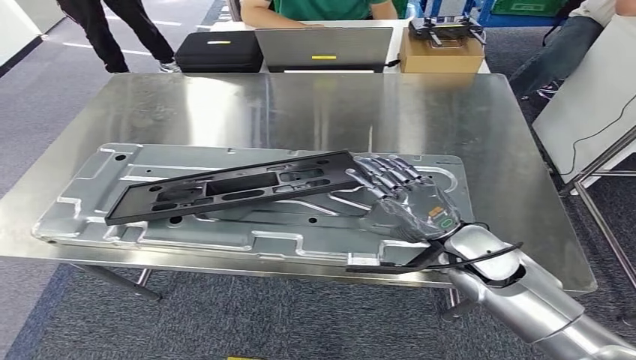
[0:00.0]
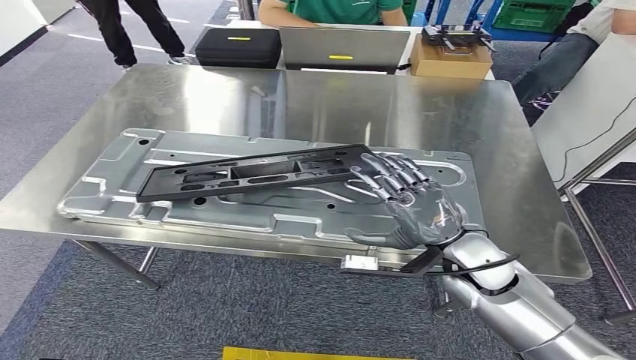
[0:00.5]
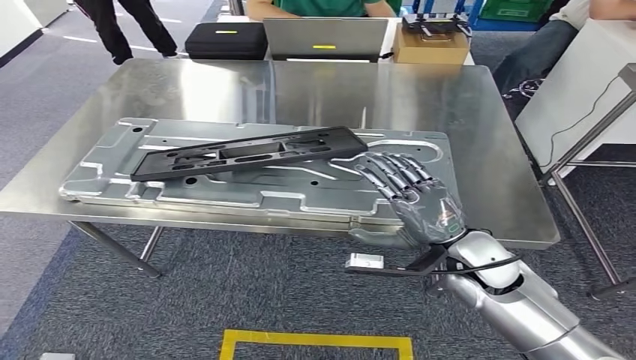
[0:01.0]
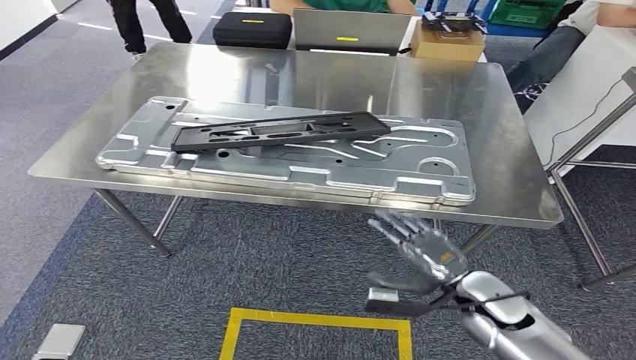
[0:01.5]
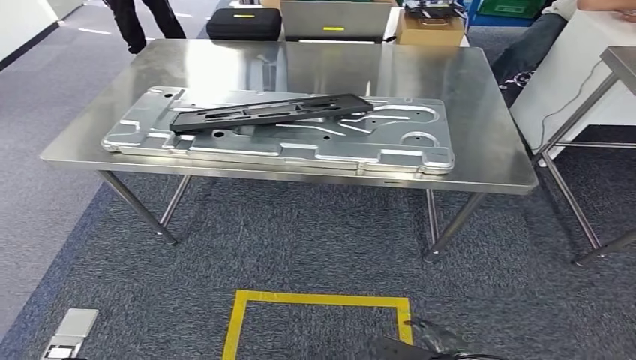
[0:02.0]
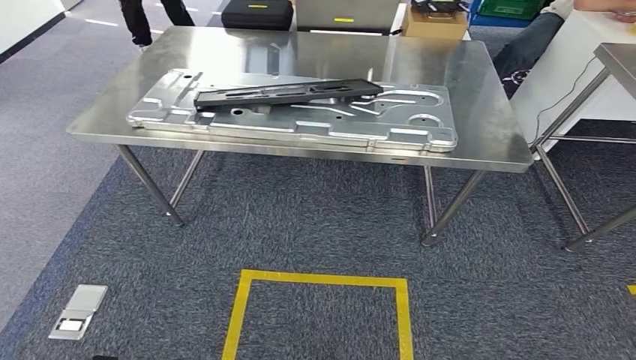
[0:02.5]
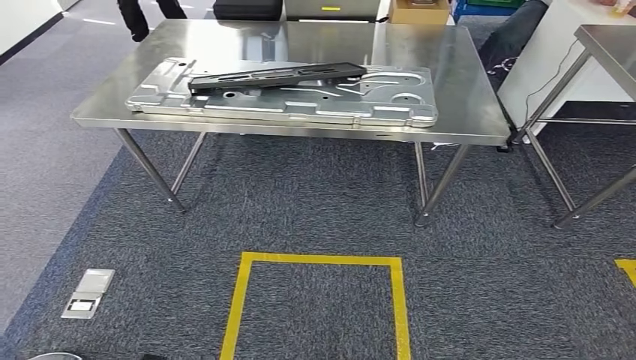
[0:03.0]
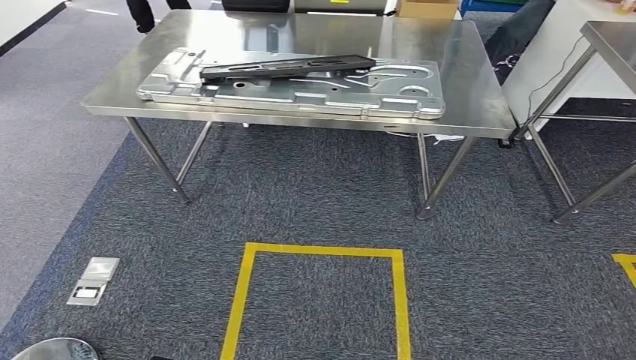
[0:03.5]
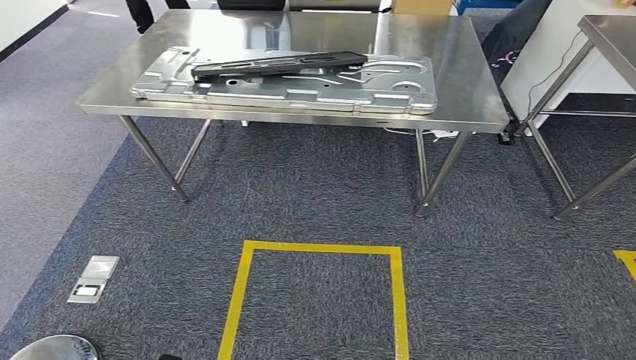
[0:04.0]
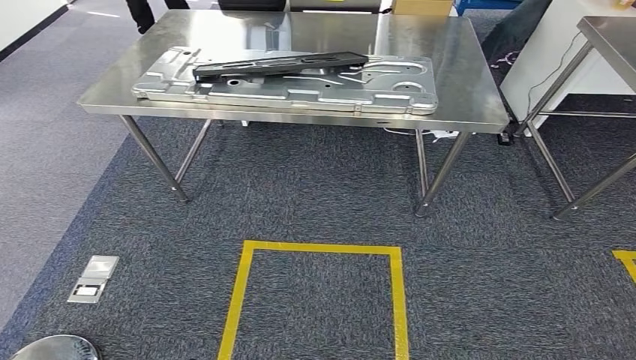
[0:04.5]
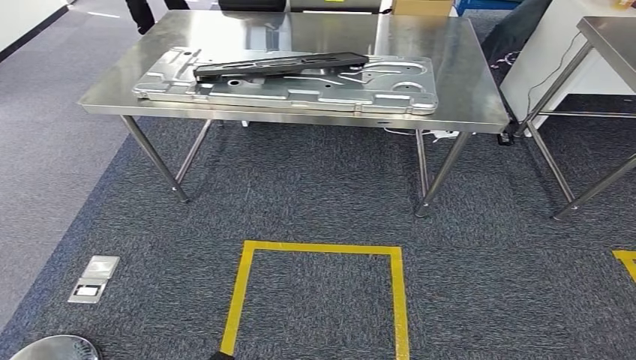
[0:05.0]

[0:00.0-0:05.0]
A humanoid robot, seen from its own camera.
Step, 0:00.0 to 0:05.0: Return to the initial position at the workbench.
